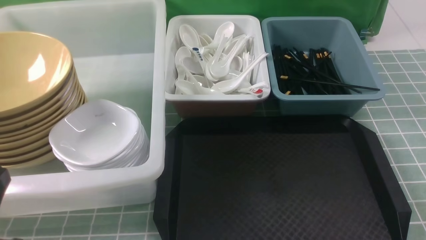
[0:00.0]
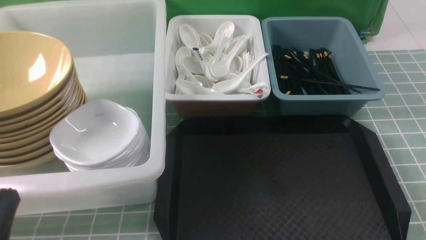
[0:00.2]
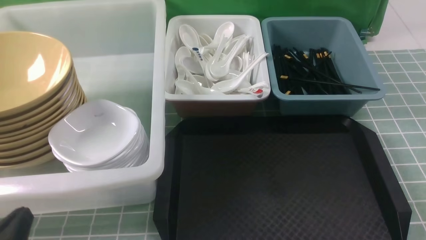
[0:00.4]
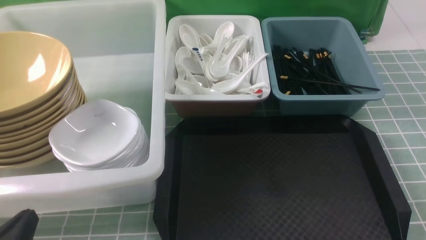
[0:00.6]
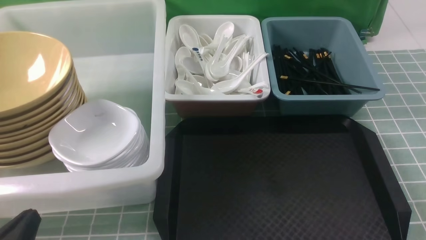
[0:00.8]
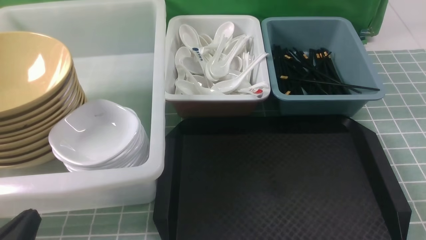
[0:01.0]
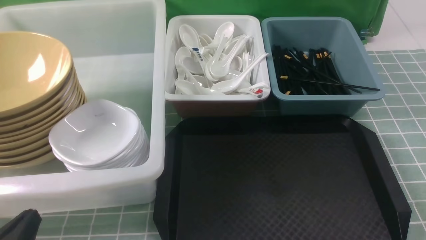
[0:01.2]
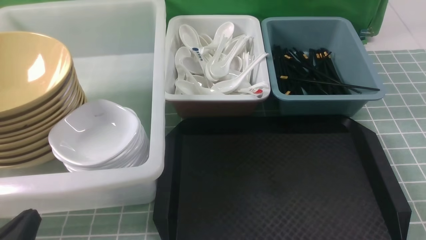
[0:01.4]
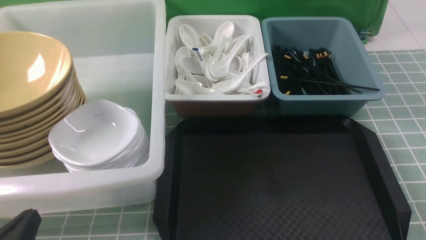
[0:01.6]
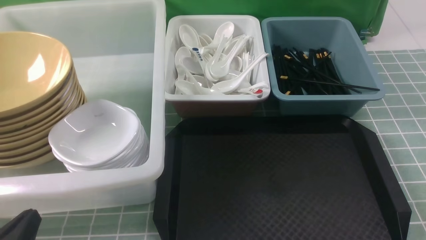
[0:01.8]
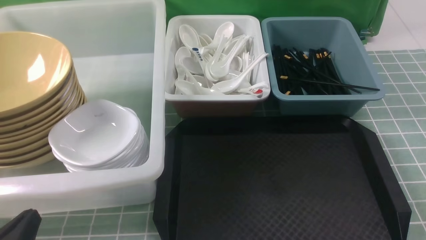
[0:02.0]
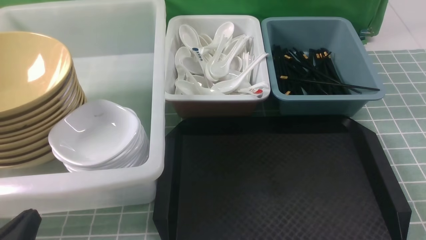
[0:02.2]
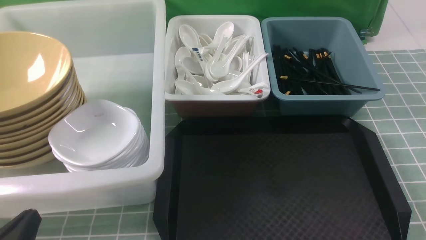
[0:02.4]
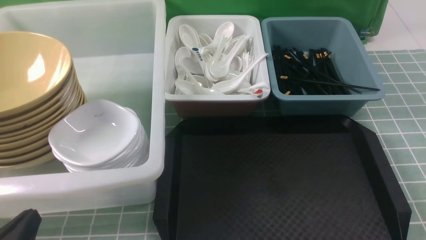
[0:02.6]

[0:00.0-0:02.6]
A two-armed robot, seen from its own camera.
Task of the whole recording: on blue table put chopsticks spoon bowls plates into blue grey white boxes.
0:00.0 to 0:01.2: The left gripper travels downward by roughly 5 cm.
0:01.2 to 0:02.6: Neither gripper changes place.

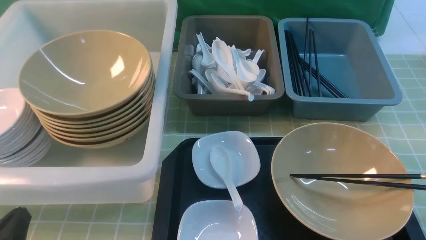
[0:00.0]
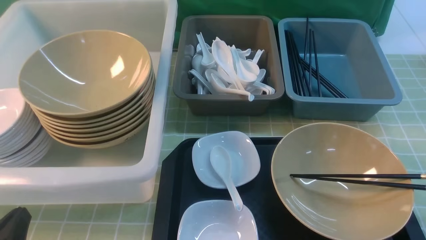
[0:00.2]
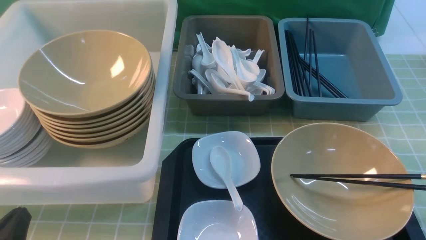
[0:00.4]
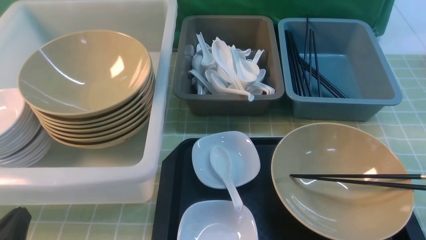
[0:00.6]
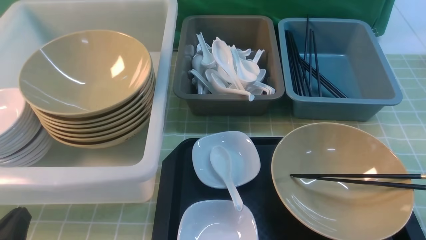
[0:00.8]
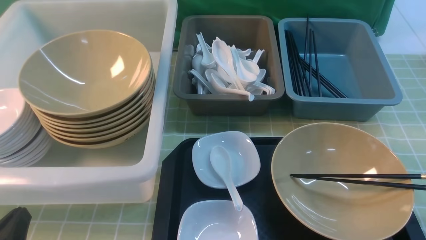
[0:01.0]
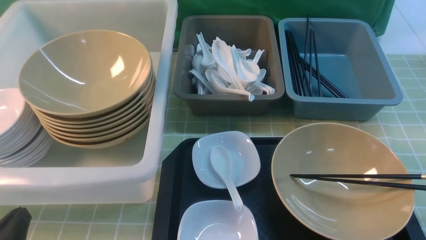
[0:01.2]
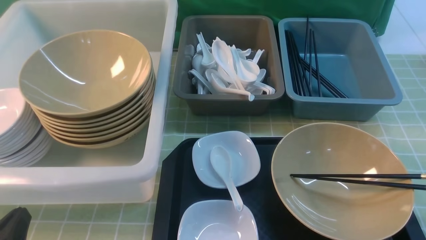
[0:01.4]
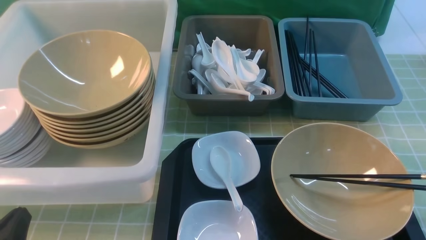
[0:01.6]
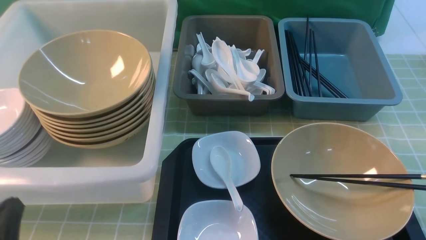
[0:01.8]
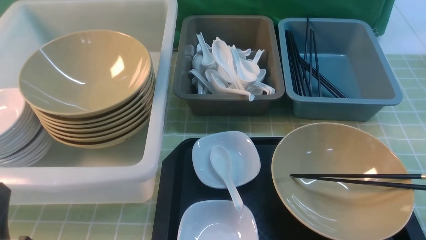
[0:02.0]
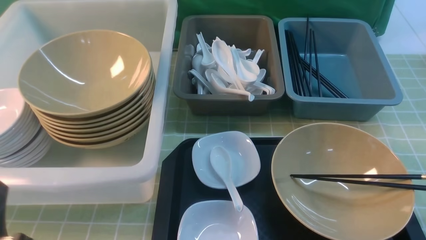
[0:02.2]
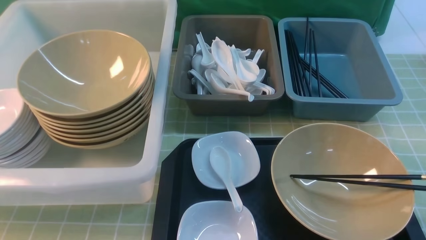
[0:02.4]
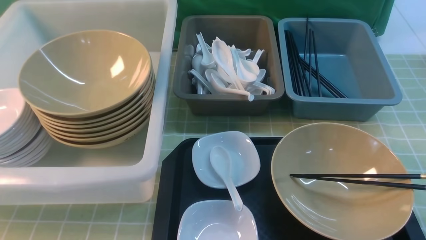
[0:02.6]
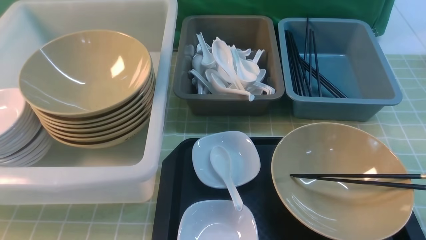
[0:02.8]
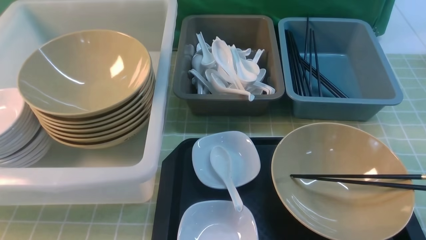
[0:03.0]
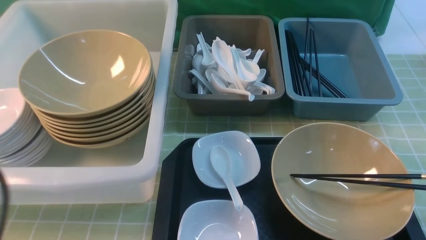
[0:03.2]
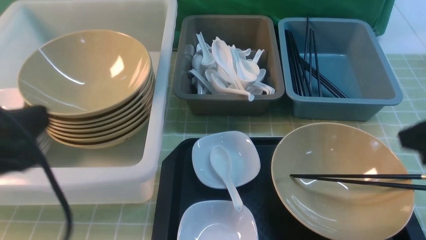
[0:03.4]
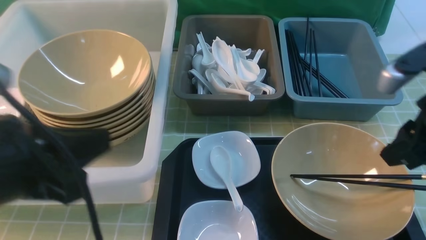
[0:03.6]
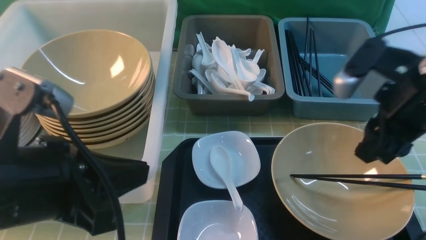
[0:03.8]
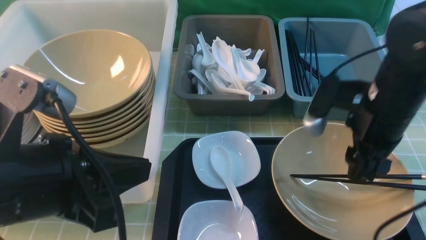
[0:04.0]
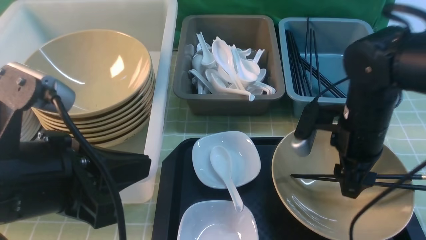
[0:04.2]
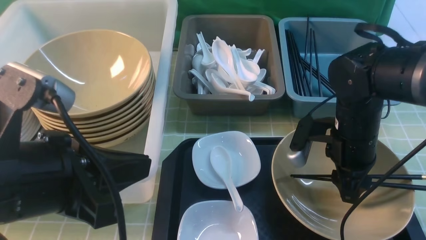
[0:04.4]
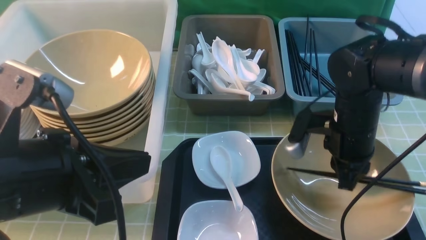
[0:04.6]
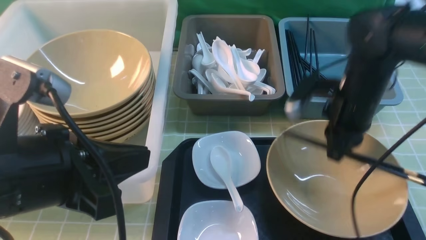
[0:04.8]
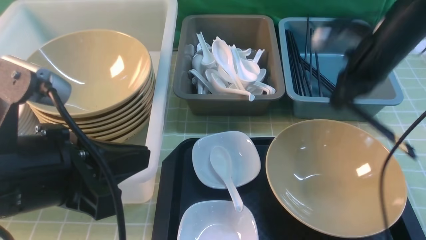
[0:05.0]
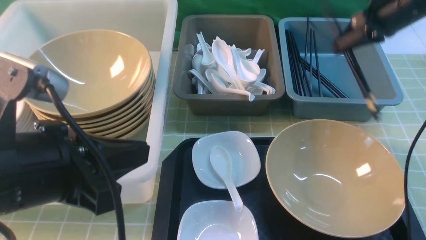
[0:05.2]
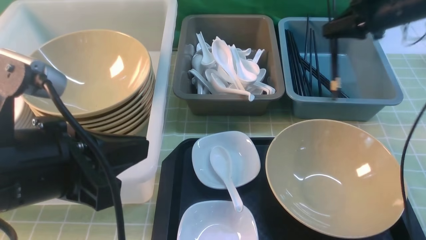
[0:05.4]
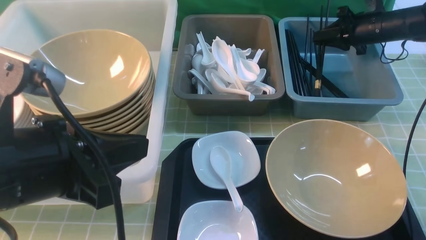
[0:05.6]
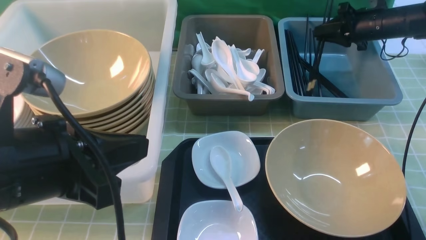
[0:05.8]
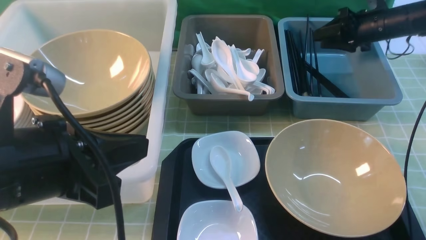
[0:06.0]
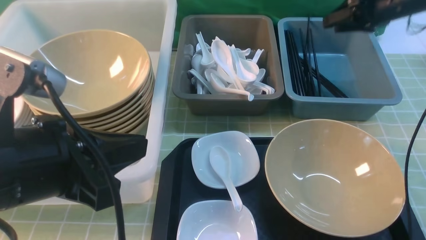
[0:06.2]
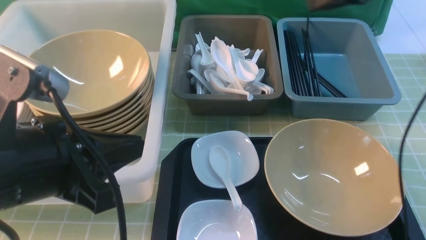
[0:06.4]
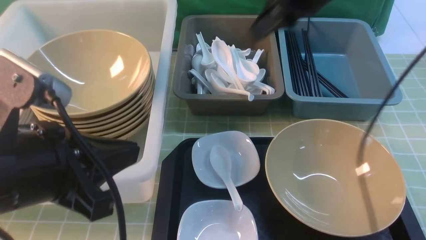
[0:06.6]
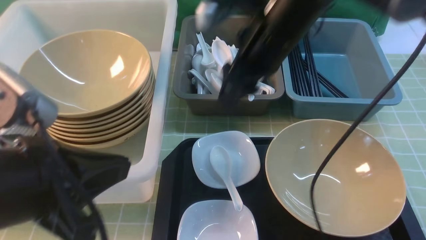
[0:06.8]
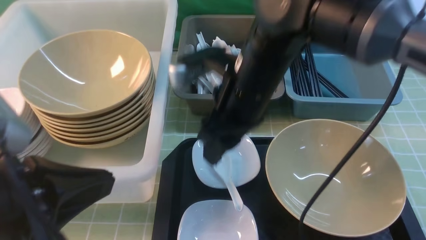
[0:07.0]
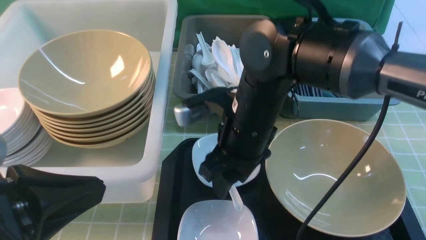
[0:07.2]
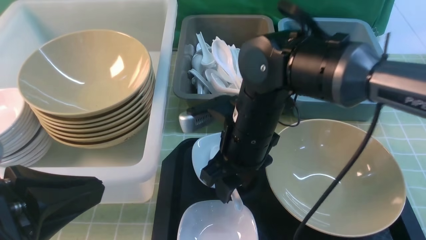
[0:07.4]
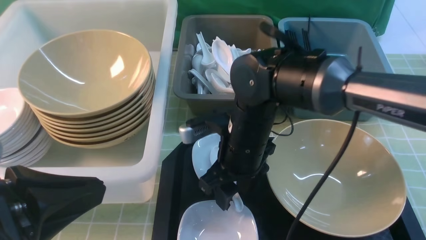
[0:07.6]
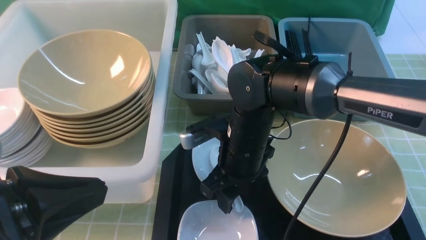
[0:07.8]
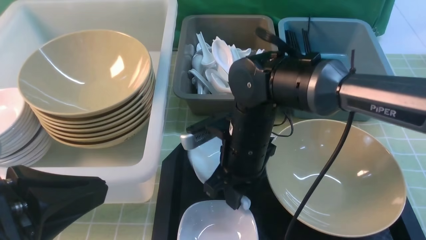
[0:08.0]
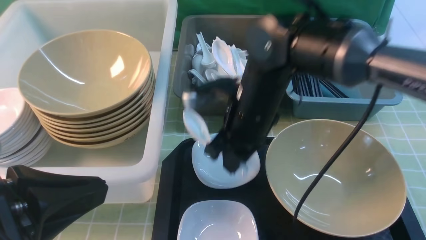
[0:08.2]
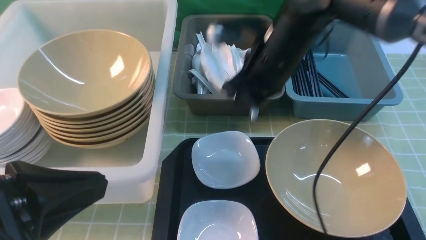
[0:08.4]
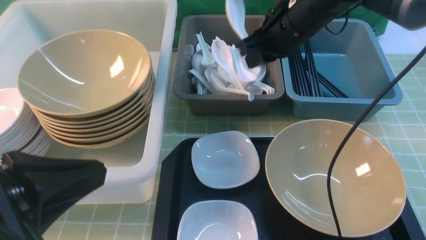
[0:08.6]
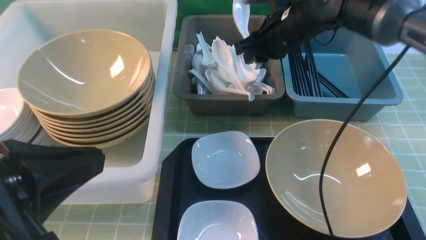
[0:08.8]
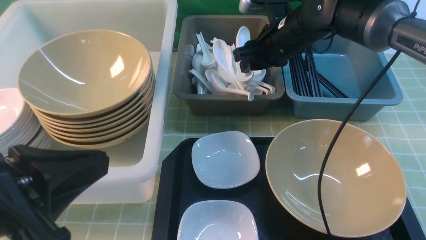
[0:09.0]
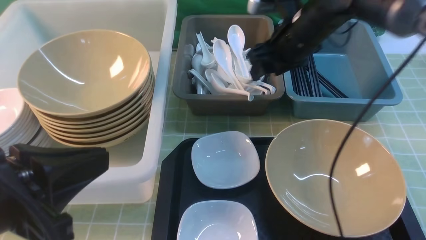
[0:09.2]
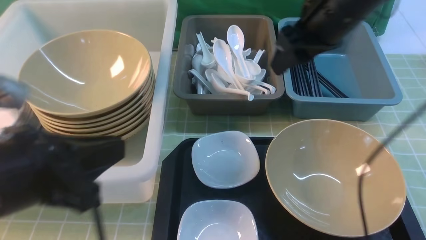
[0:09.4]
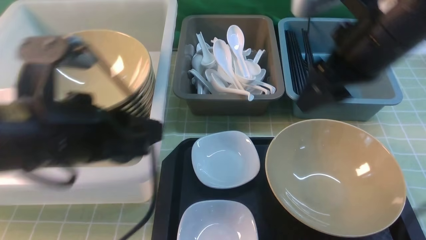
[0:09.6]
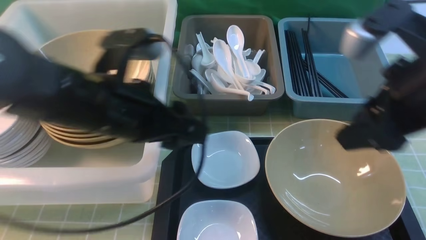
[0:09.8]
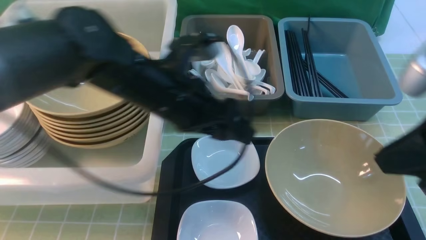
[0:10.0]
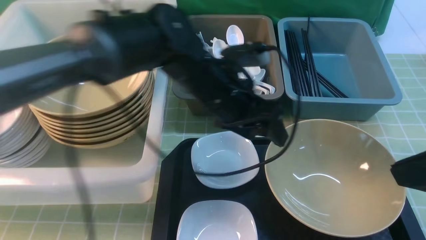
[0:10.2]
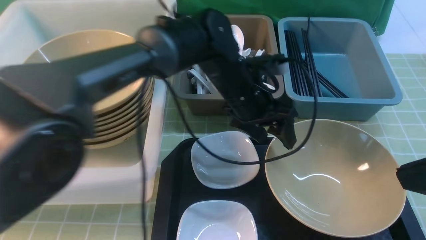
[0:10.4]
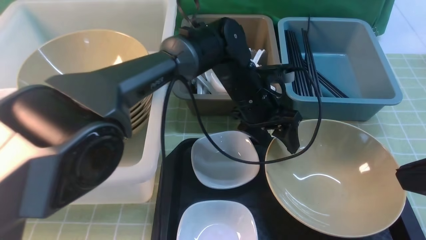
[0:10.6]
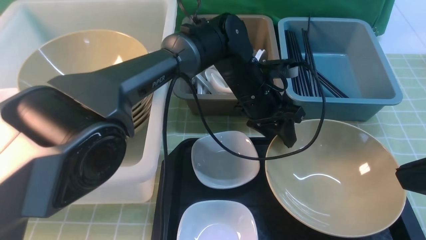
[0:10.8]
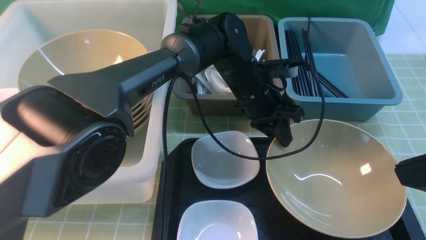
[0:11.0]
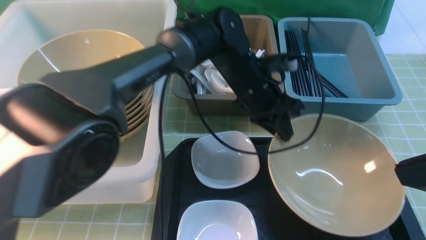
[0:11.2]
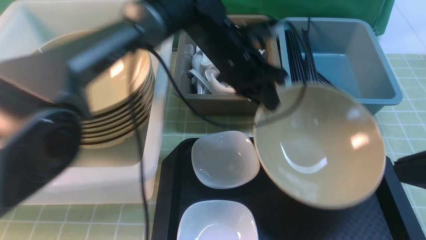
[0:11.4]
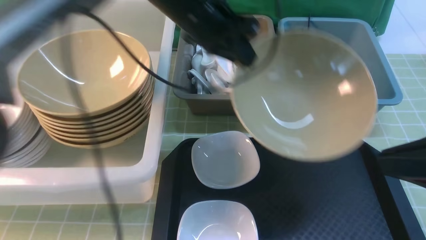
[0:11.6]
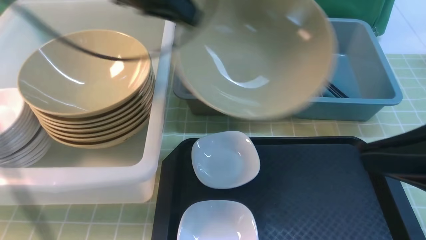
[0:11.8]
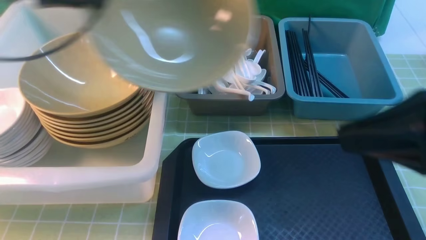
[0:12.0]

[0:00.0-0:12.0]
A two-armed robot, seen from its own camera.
Task of the whole recording: on green table put chopsticks spoon bowls plates into blue grey white boxes.
Step, 0:00.0 to 0:04.8: use the right arm to grab the chopsticks.
Step, 0:05.0 to 0:06.2: use the right arm to put the chopsticks into the small storage box on the right.
Step, 0:06.4 to 0:08.2: use the right arm to grab the soup spoon in the middle.
Step, 0:08.4 to 0:09.4: use the right arm to put the soup spoon into the small storage box in the middle.
Step, 0:09.6 to 0:11.6: use the left arm to grab the yellow noodle bowl on the left.
0:01.6 to 0:03.0: The left gripper shifts roughly 20 cm upward.
0:03.0 to 0:04.4: The left gripper goes approximately 10 cm to the right and downward. Meanwhile the right gripper travels downward, forward and to the left by approximately 30 cm.
0:04.4 to 0:06.0: The right gripper travels forward and to the right by approximately 25 cm, and closes and opens again.
0:06.0 to 0:07.6: The right gripper heads to the left and backward, covering about 40 cm. The left gripper goes approximately 5 cm backward.
0:07.6 to 0:09.0: The right gripper shifts roughly 20 cm forward, to the right and upward, and closes, then reopens.
0:09.0 to 0:10.4: The right gripper heads backward, covering some 30 cm, and closes; the left gripper is displaced forward, to the right and downward by about 35 cm, and opens up.
0:10.4 to 0:12.0: The left gripper heads to the left and upward, covering about 35 cm, and closes up; the right gripper ends up approximately 5 cm from where it was.

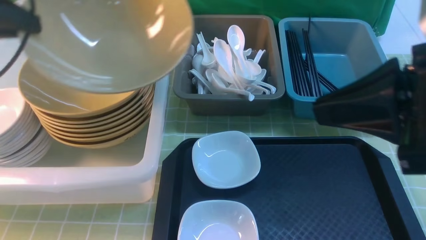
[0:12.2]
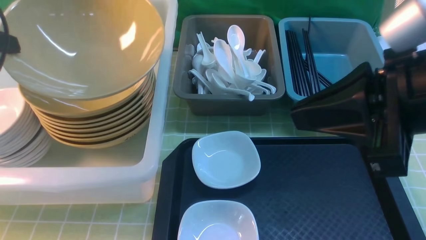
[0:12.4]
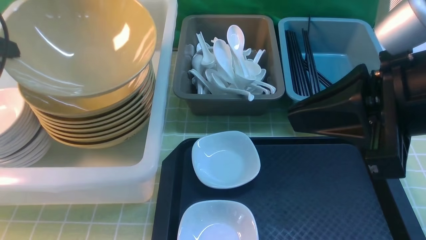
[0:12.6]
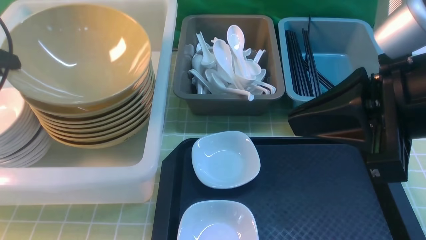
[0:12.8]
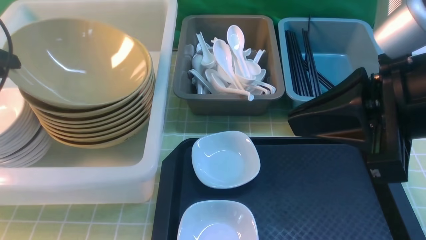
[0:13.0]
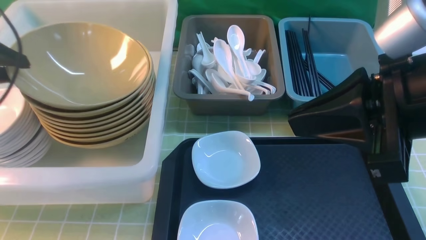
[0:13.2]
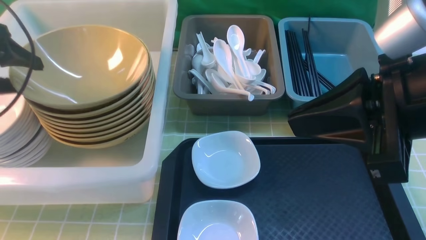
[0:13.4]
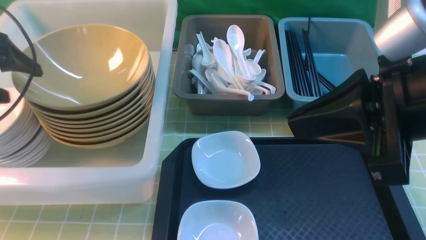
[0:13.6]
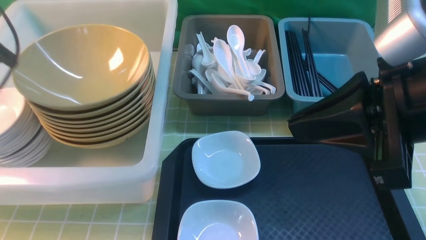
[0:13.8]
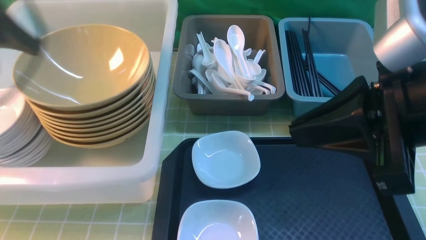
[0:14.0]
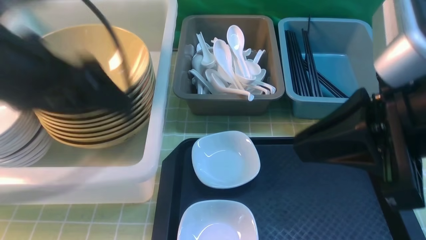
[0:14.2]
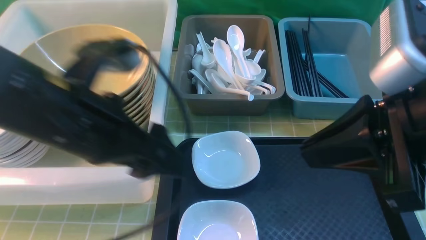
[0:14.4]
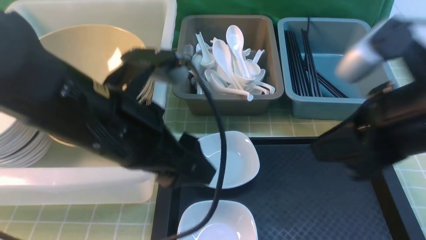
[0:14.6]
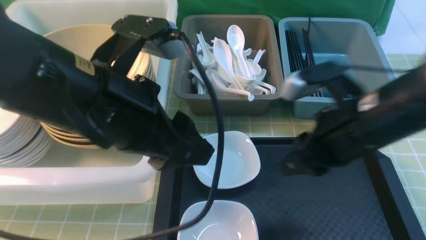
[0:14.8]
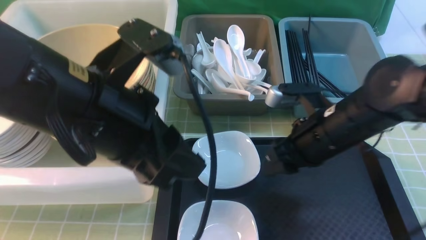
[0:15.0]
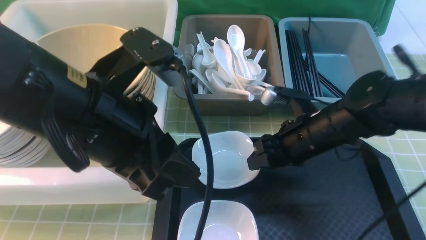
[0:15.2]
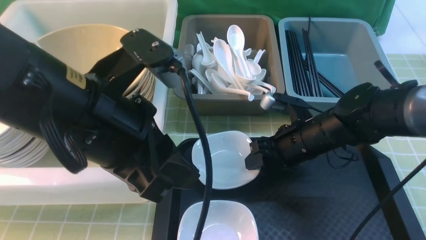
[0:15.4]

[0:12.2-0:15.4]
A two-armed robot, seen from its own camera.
Task of the whole recording: on green table put chopsticks spoon bowls plates into blue grey white boxes.
Step, 0:12.2 to 0:13.8: use the left arm to put the noodle bowl into the large storage box on the left.
0:12.2 to 0:13.8: The left gripper opens its fingers.
0:13.8 to 0:15.4: The left gripper heads to the right and backward, covering approximately 25 cm, and closes up. The right gripper is displaced downward and forward by roughly 30 cm, and opens up.
